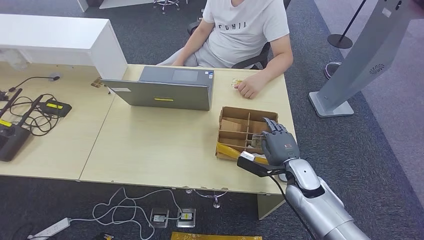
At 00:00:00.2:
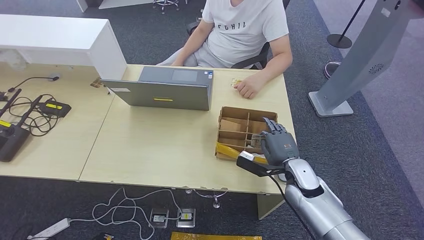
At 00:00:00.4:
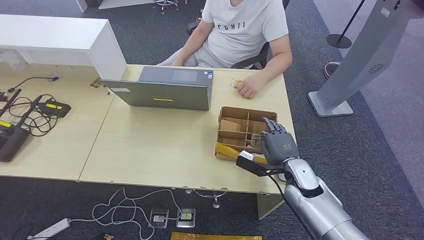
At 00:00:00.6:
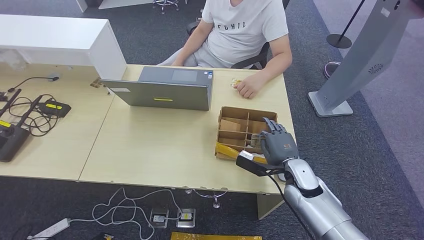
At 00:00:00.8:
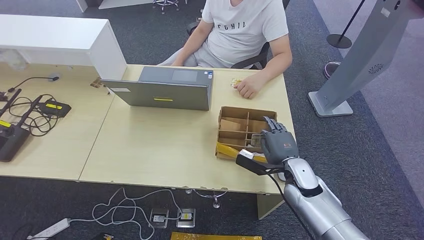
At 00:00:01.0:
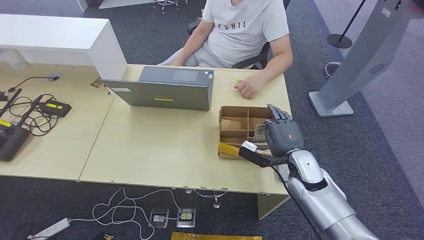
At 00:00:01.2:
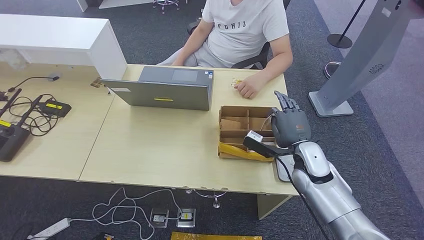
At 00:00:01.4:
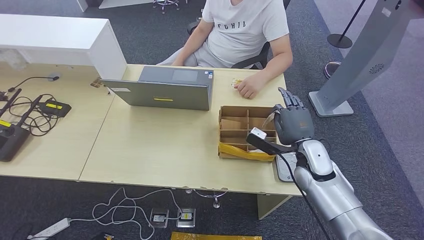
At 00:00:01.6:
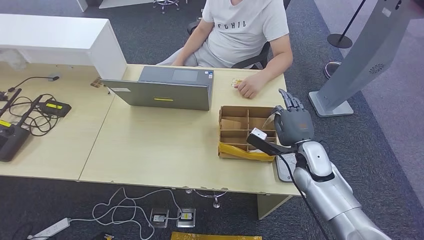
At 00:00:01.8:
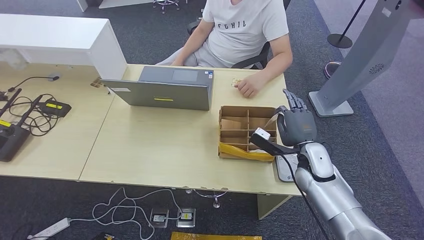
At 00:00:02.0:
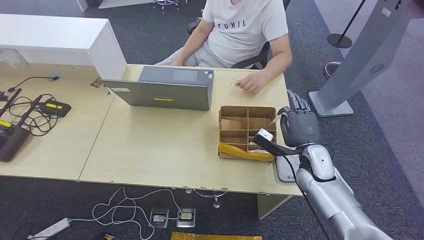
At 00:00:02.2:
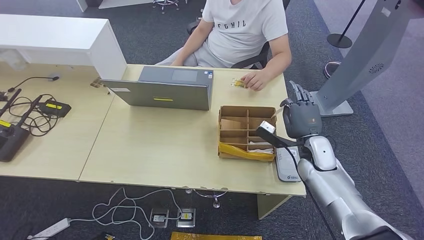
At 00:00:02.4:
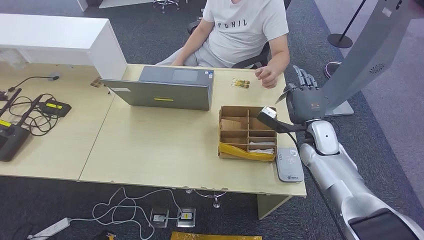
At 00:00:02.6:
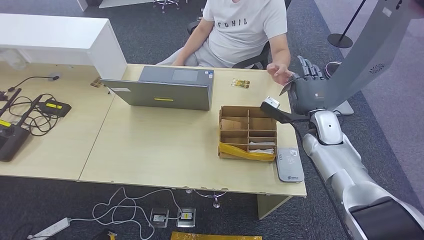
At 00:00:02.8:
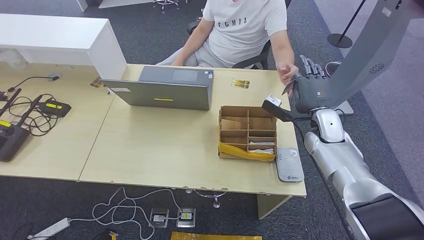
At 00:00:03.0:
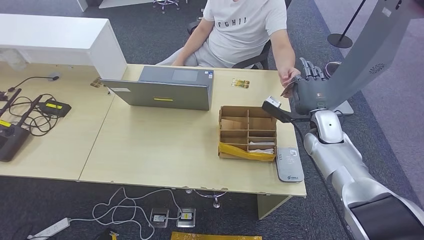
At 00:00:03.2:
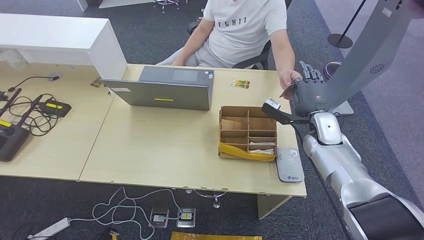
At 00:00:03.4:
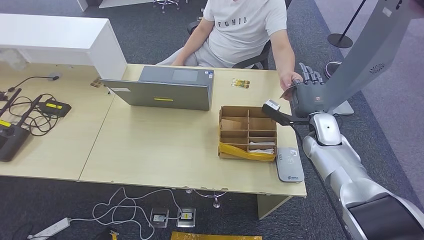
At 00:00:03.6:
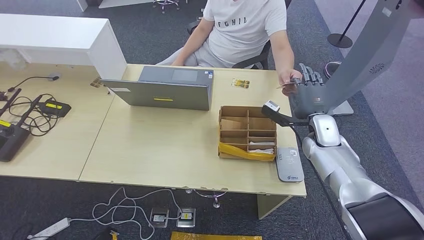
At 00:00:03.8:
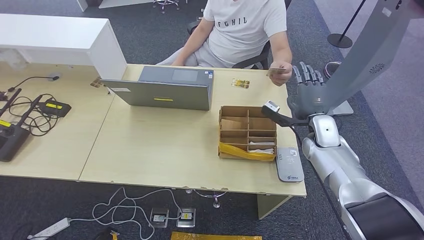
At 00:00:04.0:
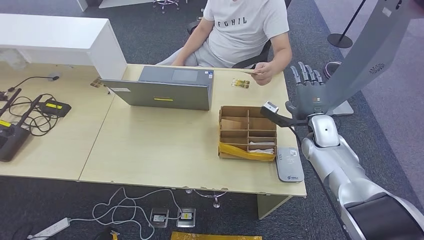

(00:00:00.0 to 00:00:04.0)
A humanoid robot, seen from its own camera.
Step, 00:00:01.0 - 00:00:04.0: Hand the room key to the person.
00:00:00.0 - 00:00:01.4: The right hand shifts approximately 5 cm upward.
00:00:01.4 - 00:00:02.6: The right hand shifts some 5 cm forward.
00:00:02.6 - 00:00:04.0: The hands make only small movements.
